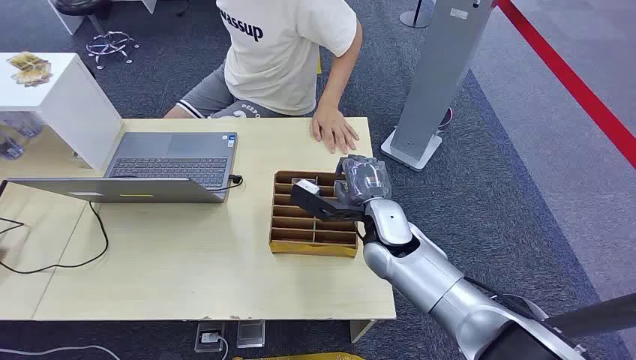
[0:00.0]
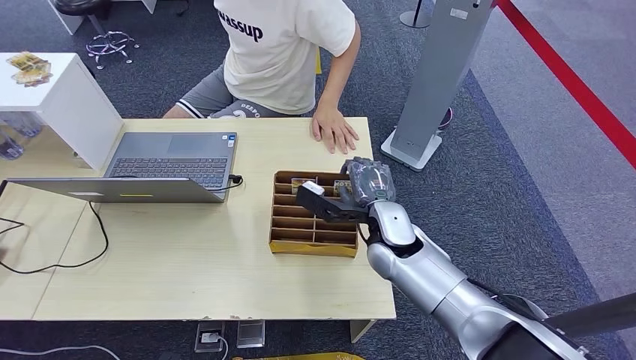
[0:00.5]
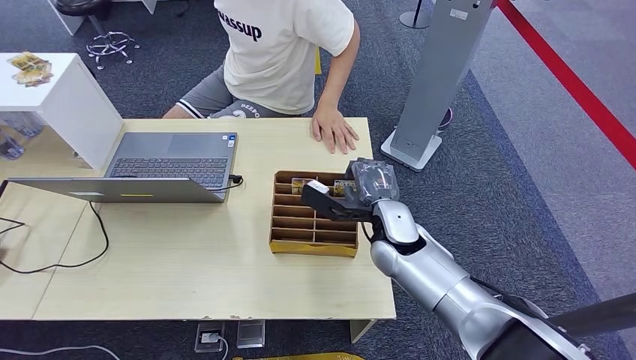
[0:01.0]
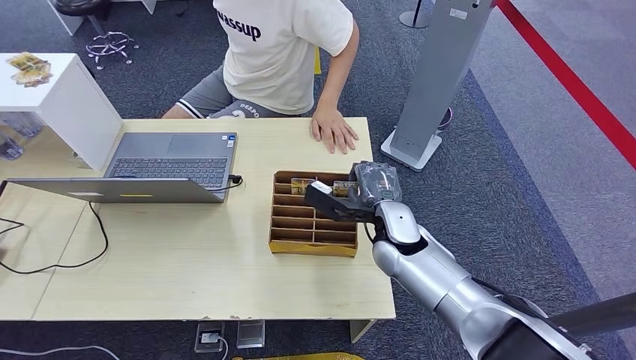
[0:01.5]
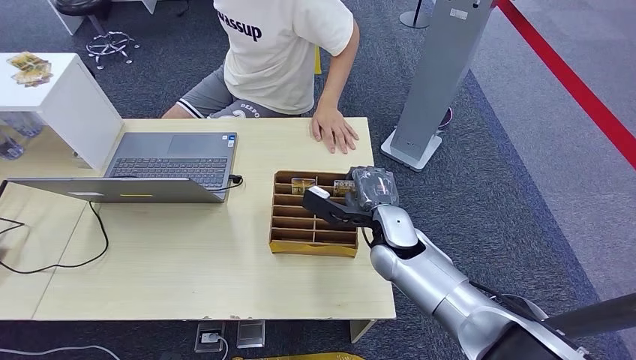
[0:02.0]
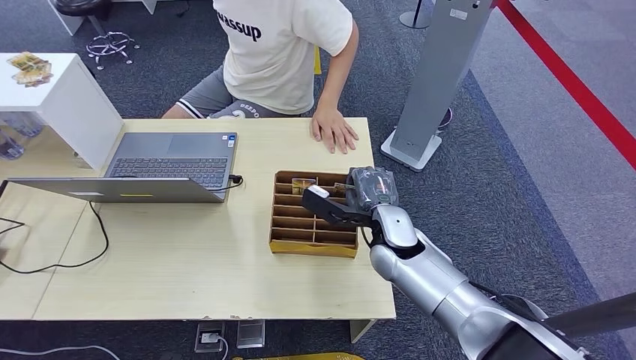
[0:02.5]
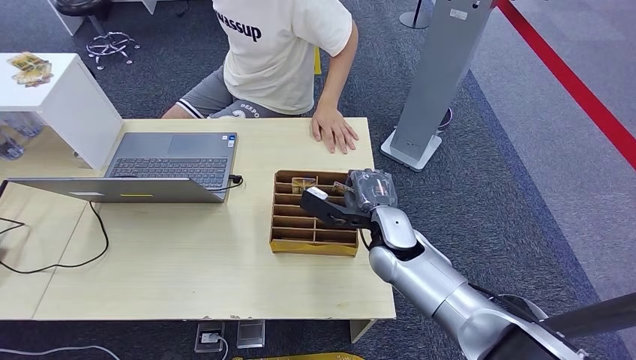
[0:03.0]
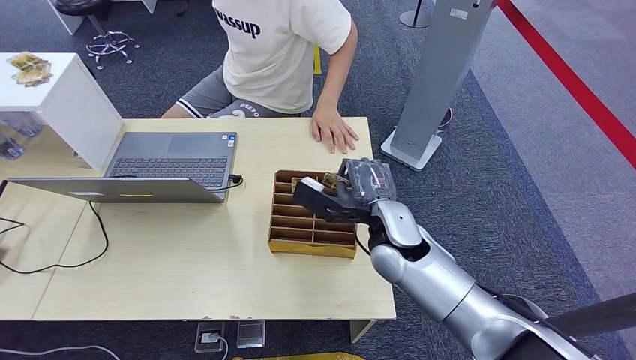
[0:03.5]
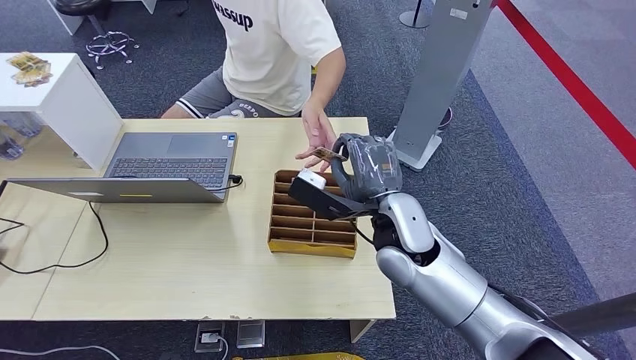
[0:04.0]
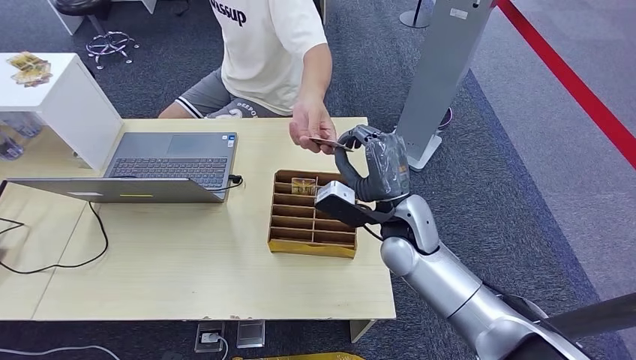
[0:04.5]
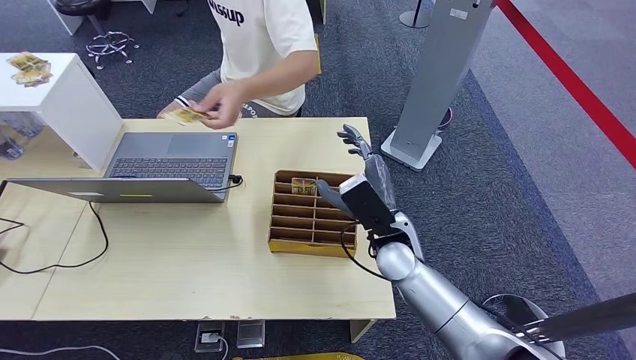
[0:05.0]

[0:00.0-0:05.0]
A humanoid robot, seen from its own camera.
Step, 0:00.0 to 0:03.5: Pick up the key card from the card box.
Step, 0:04.0 to 0:05.0: Hand the key card to the target.
0:02.5 to 0:05.0: The right hand goes upward and returns, some 10 cm each way.

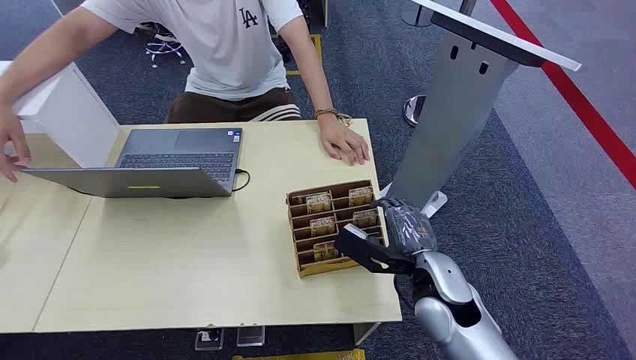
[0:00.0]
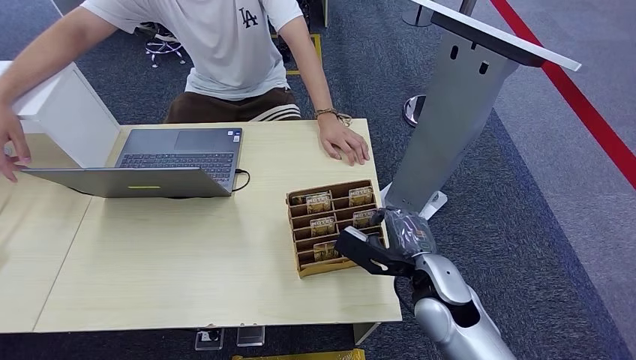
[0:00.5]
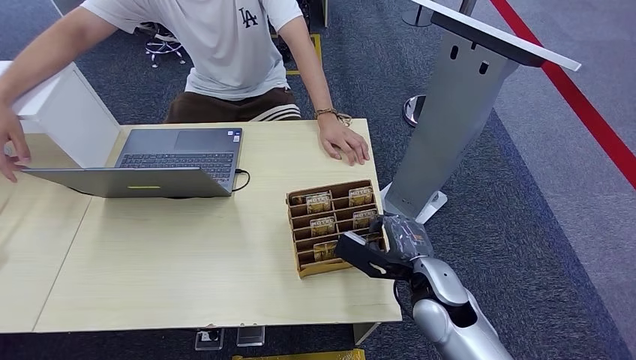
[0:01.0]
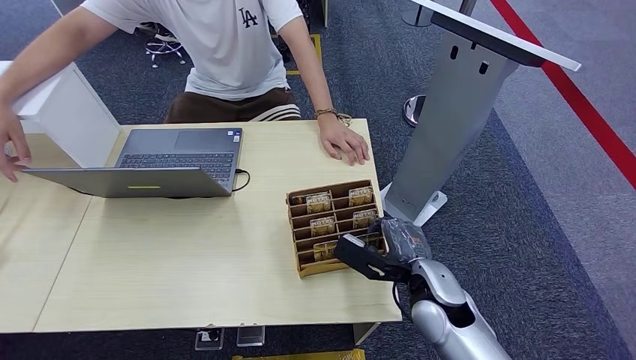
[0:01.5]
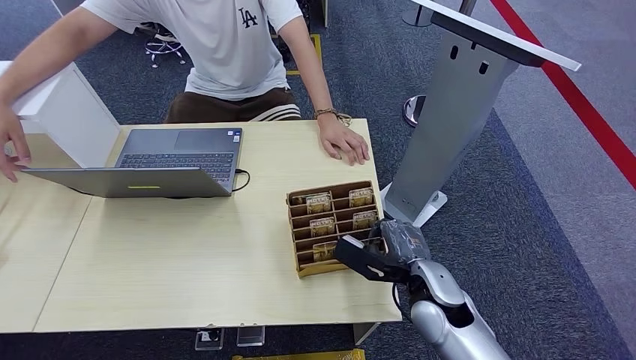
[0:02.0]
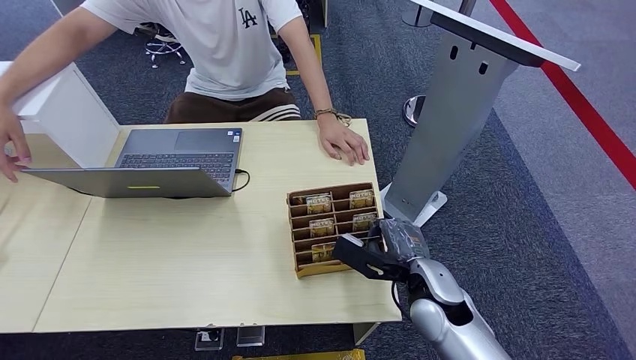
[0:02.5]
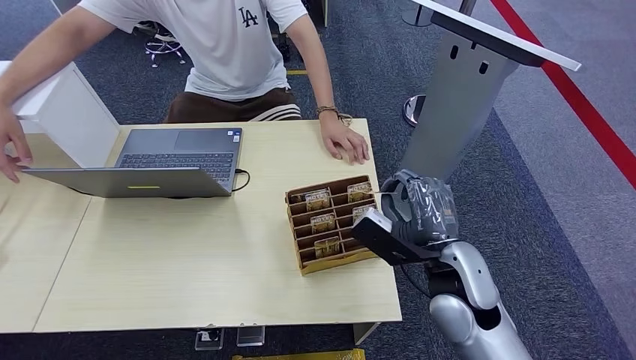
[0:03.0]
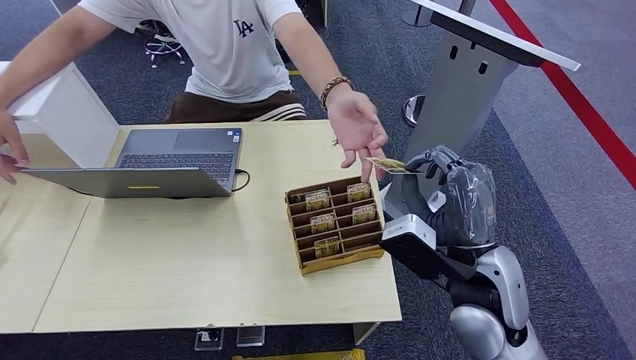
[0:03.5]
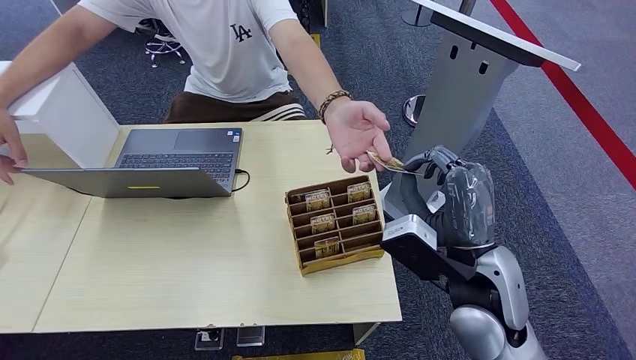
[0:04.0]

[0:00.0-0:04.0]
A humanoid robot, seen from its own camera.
Step, 0:00.0 to 0:03.0: Pick up the key card from the card box.
Step, 0:03.5 to 0:04.0: Hand the key card to the target.
0:02.0 to 0:04.0: The right hand travels upward by some 15 cm.
